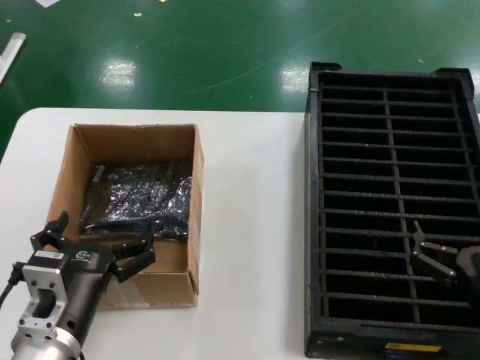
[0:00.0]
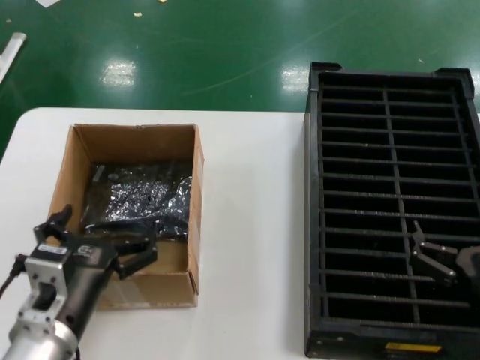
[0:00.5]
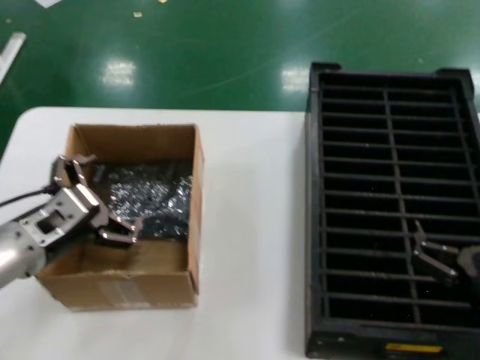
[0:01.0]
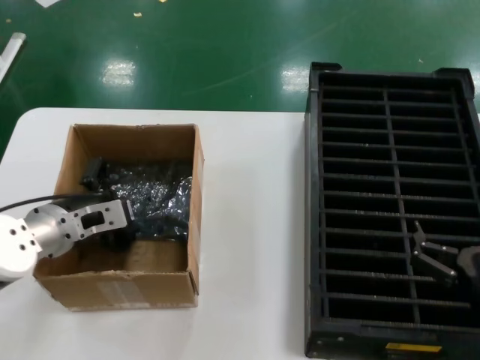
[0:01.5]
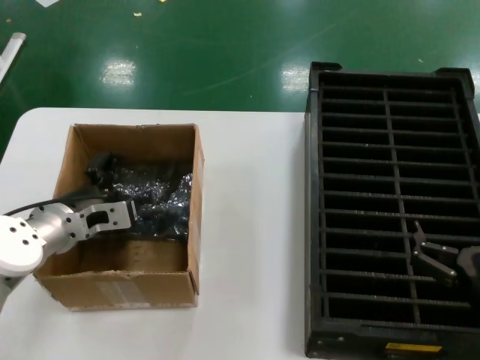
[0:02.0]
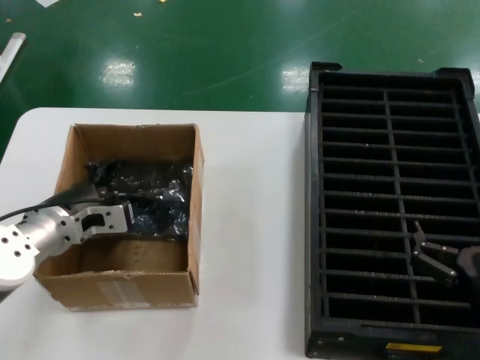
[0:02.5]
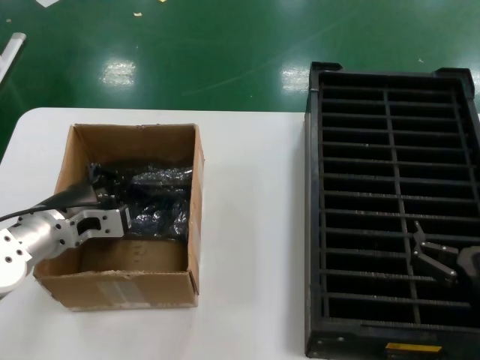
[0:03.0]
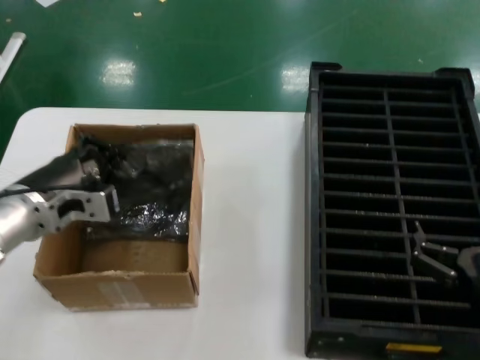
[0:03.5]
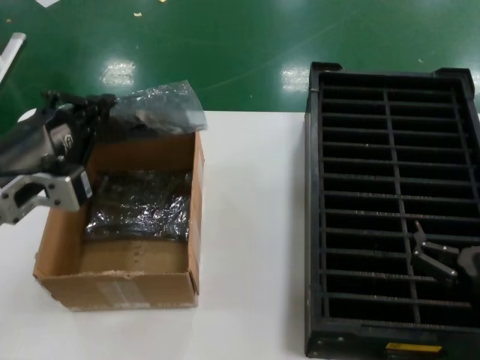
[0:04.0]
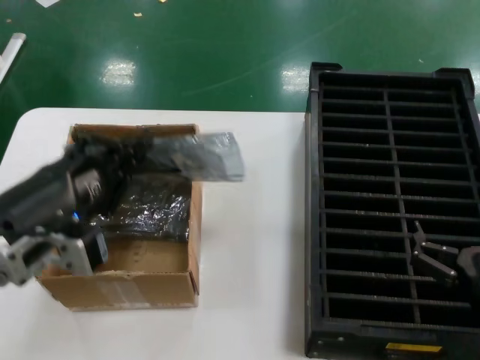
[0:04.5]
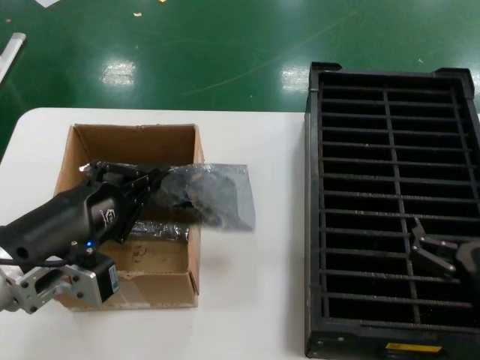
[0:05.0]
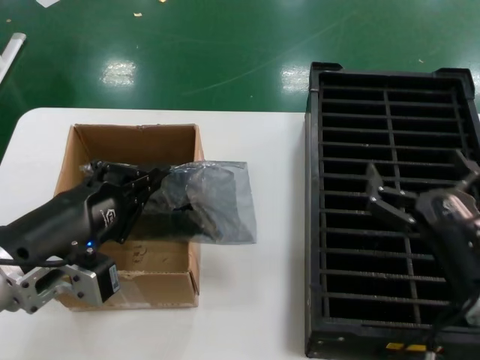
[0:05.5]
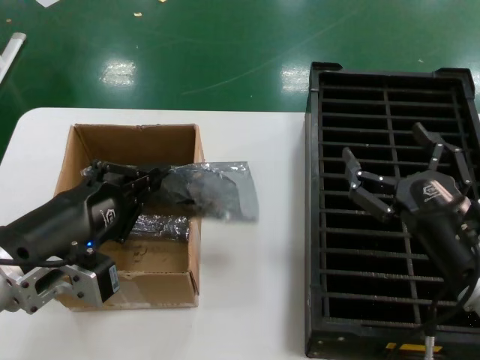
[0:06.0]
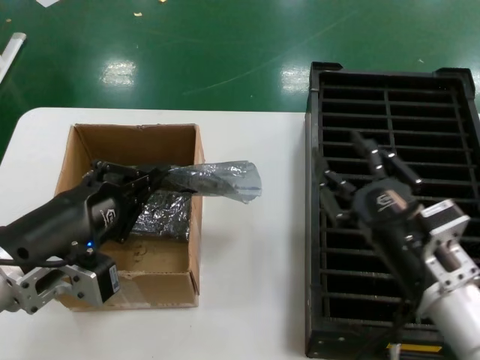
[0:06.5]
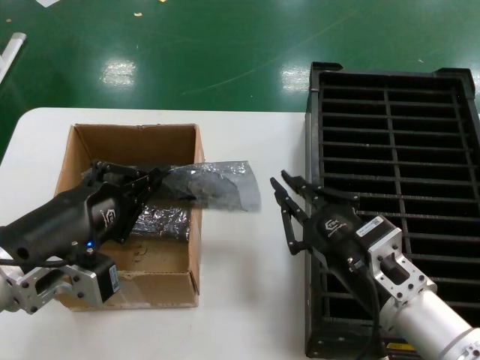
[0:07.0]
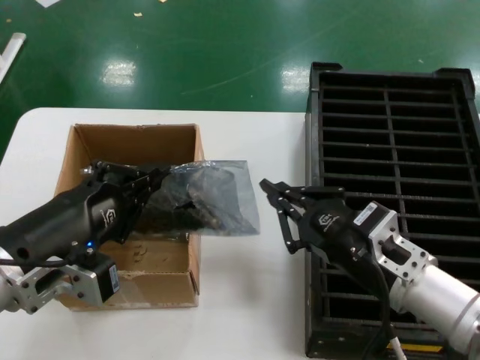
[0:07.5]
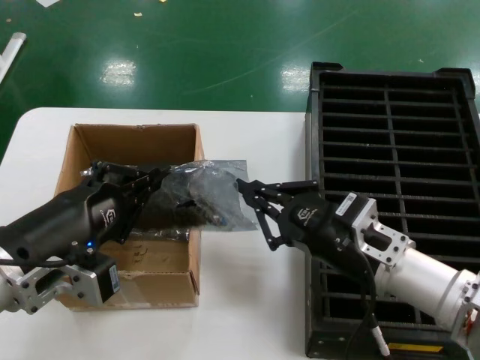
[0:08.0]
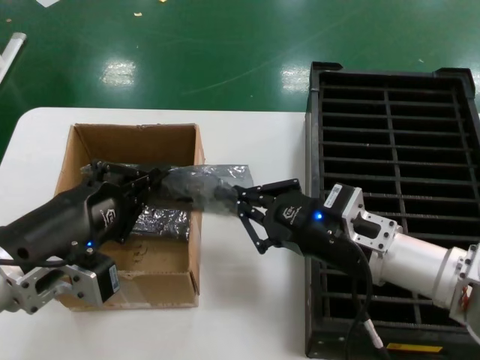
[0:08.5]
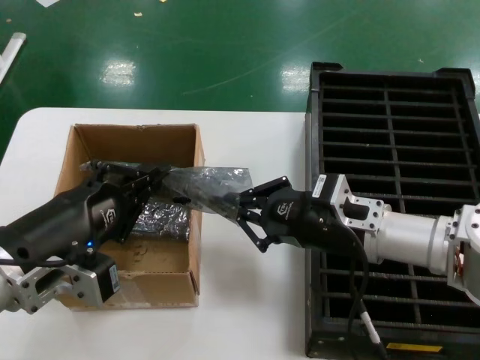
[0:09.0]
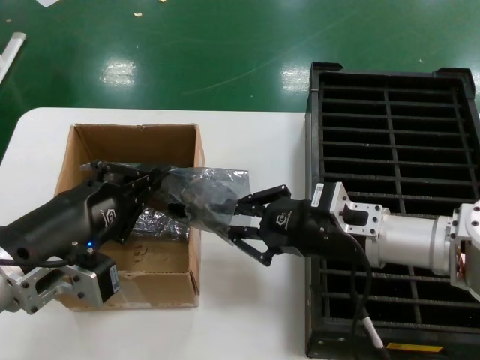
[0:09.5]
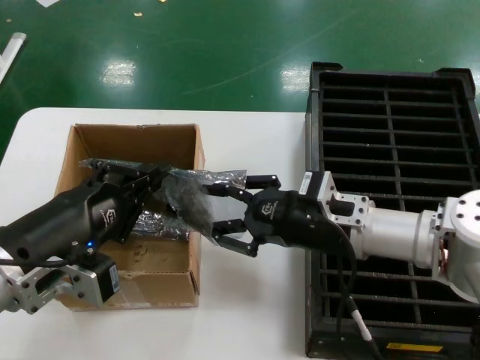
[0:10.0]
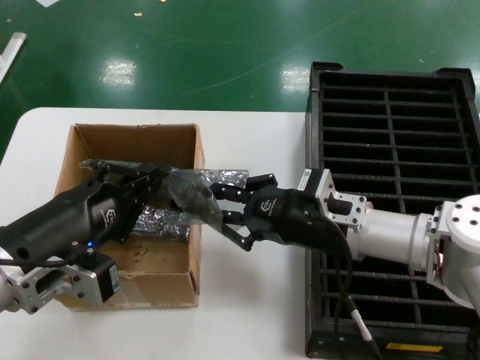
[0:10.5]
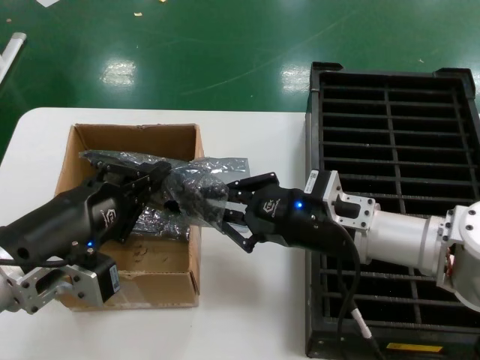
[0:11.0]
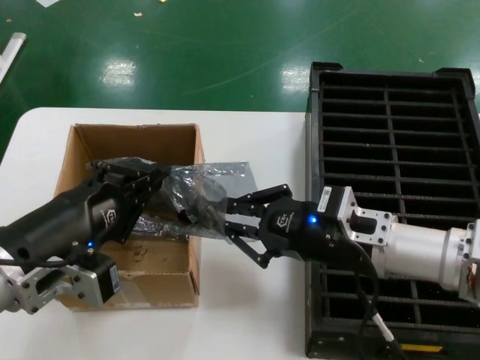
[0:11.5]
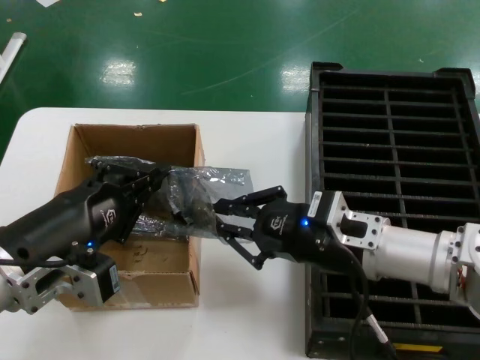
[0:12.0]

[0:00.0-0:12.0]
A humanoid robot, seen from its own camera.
Task of the whole recording: take out graphics card from box remove packaging put into black container.
Step, 0:00.0 to 0:02.0: Grasp the bag.
Step, 0:02.5 to 0:05.0: Lift the bag.
0:00.0 to 0:02.0: The left hand moves forward and to the left, approximately 20 cm.
0:02.0 to 0:04.0: The left hand shifts some 15 cm backward and upward.
0:04.0 to 0:06.0: The right hand is displaced upward by some 5 cm, while the left hand is displaced backward by approximately 5 cm.
0:06.0 to 0:08.0: The right hand moves to the left and forward, roughly 10 cm.
0:08.0 to 0:10.0: The right hand heads forward, covering about 5 cm.
0:10.0 to 0:12.0: There are only small adjustments of the hands.

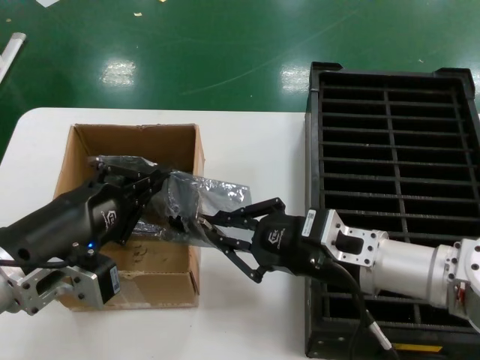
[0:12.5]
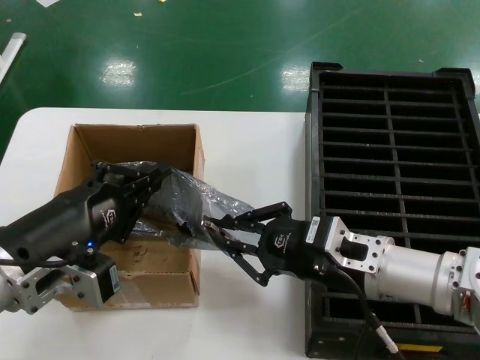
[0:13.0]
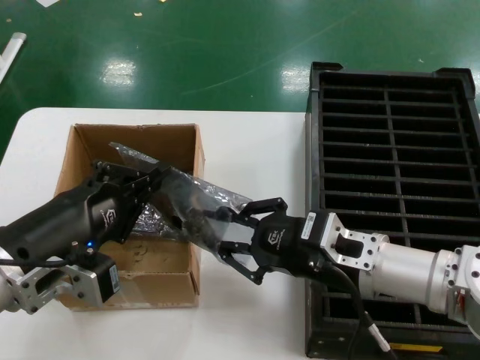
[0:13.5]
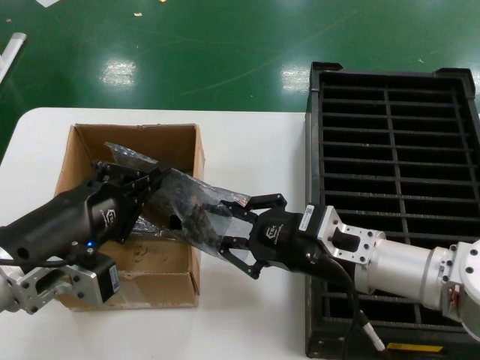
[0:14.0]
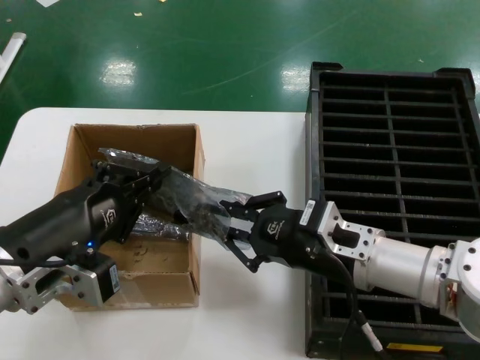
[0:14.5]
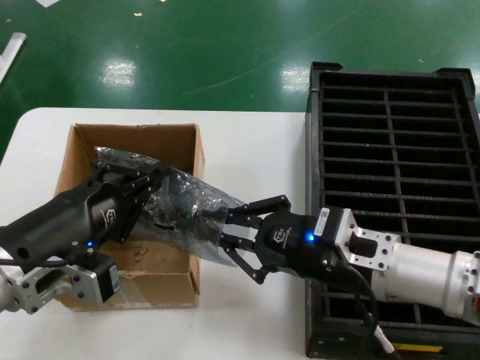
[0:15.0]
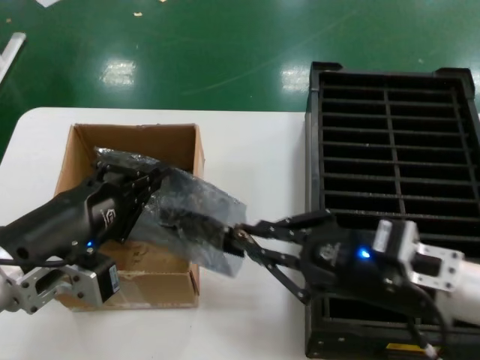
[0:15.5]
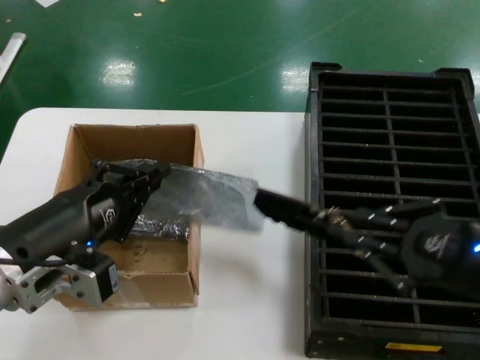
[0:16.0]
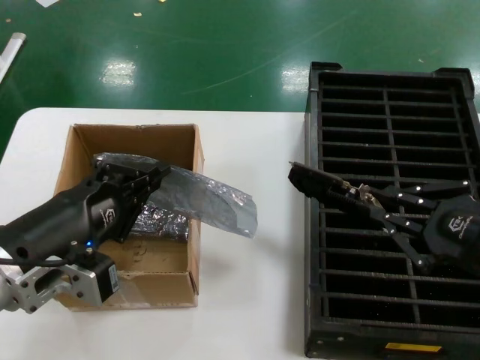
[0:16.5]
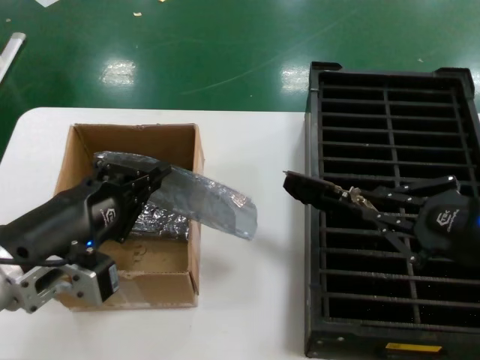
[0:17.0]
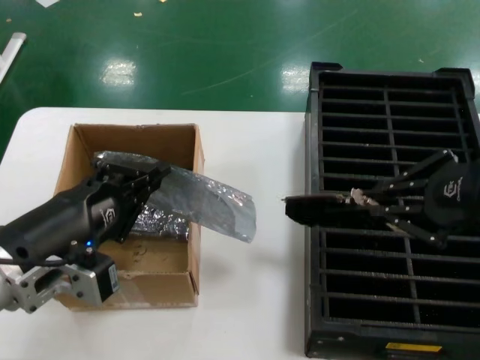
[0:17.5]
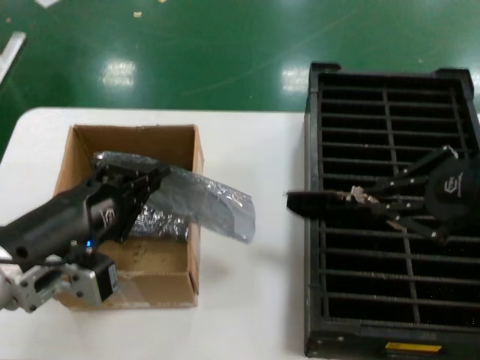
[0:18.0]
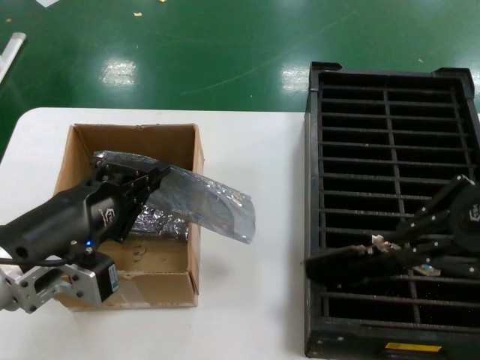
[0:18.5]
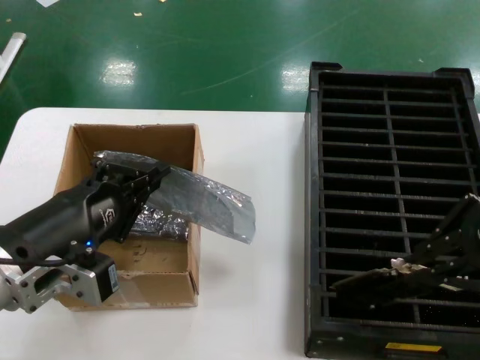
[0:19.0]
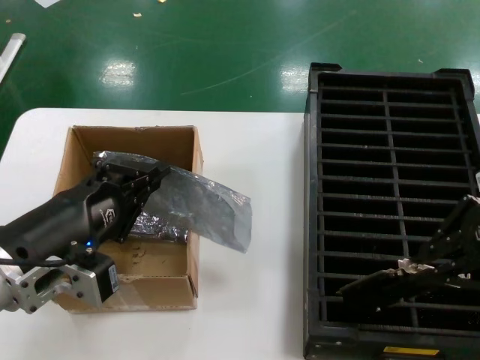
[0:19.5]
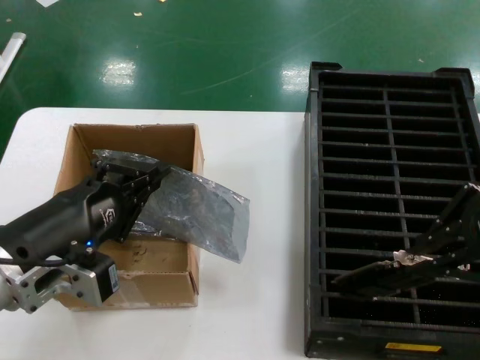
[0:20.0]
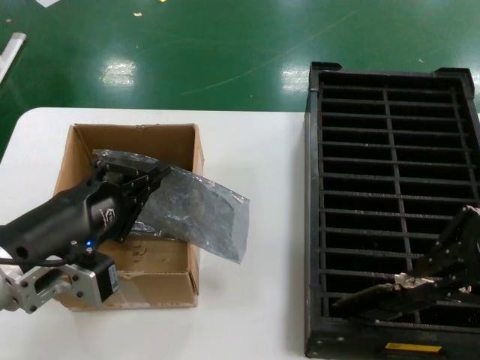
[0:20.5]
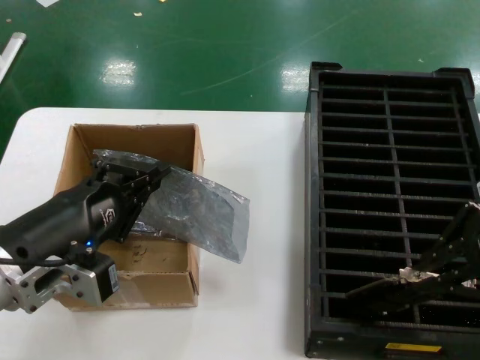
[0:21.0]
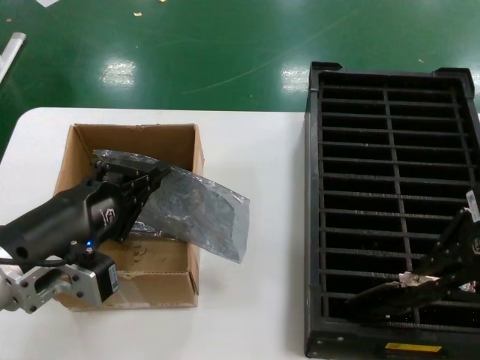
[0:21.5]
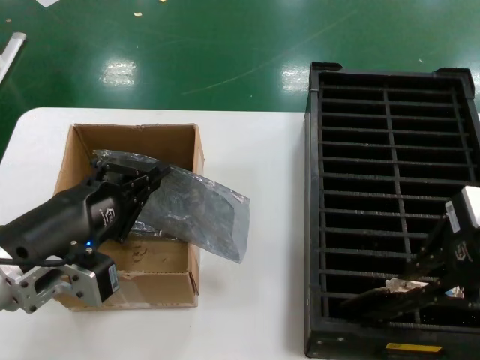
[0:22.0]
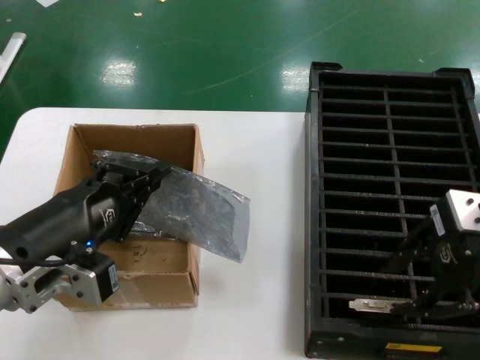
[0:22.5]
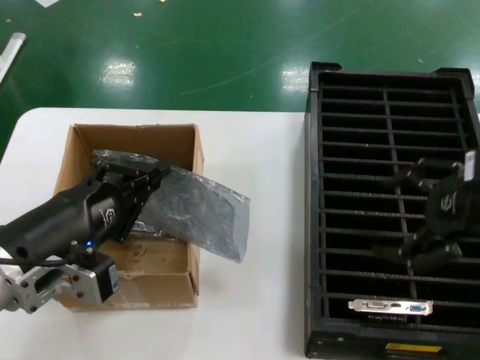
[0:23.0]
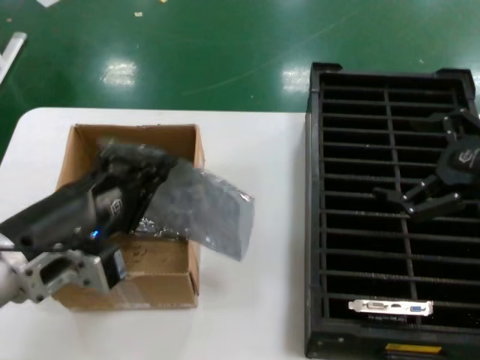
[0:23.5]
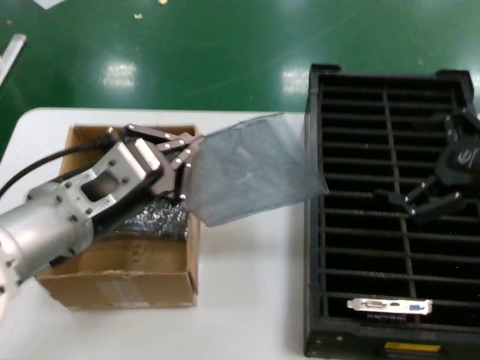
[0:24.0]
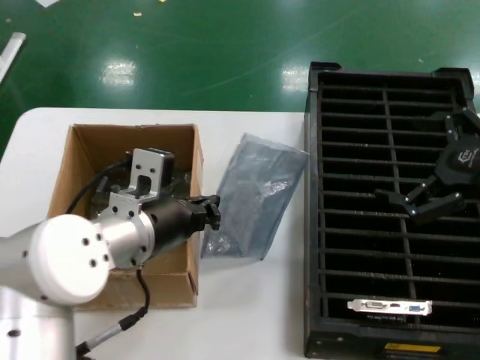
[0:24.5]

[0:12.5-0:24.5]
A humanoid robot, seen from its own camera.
Task of the whole recording: take out graphics card from box remove packaging put into black container.
Step, 0:12.5 to 0:16.0: Take out the hard disk of the bag.
Step, 0:16.5 to 0:22.5: Place the hard disk in the hard disk enclosure.
0:12.5 to 0:14.5: The hands make only small movements.
0:14.5 to 0:16.5: The right hand travels to the right, backward and upward by approximately 20 cm.
0:16.5 to 0:18.5: The right hand moves upward and forward, some 15 cm.
0:18.5 to 0:20.5: The hands move only a little.
0:20.5 to 0:22.5: The right hand changes place by about 5 cm.
0:22.5 to 0:24.5: The right hand is displaced to the right by roughly 10 cm, while the left hand heads forward and to the right, covering about 15 cm.

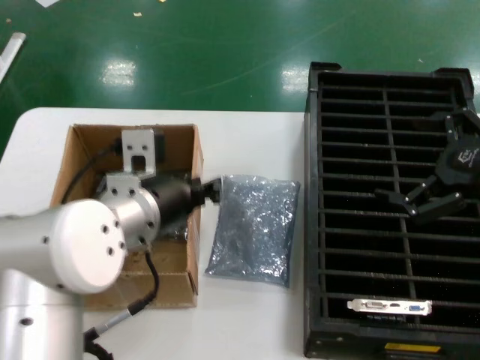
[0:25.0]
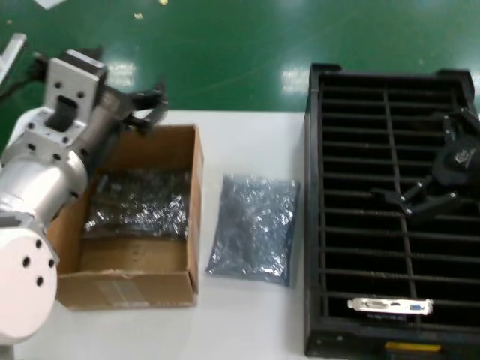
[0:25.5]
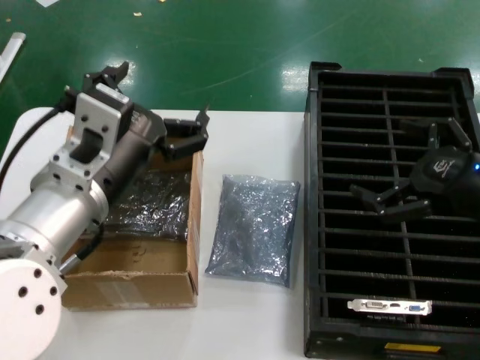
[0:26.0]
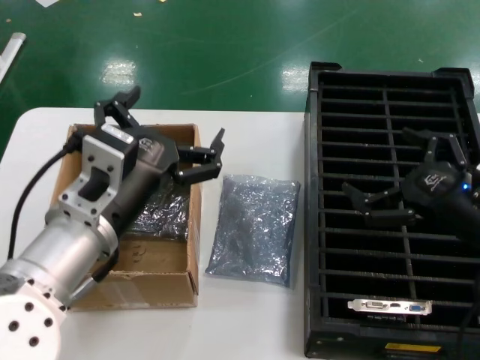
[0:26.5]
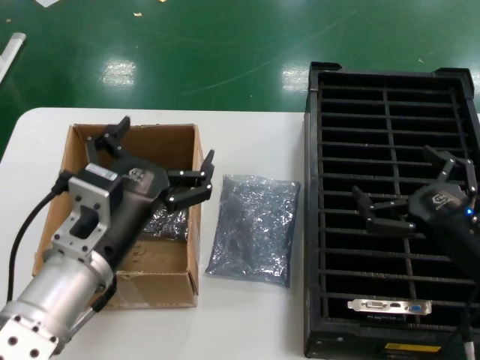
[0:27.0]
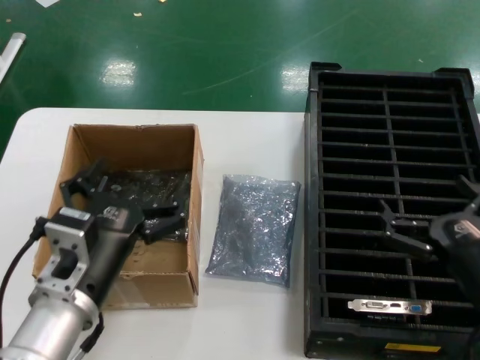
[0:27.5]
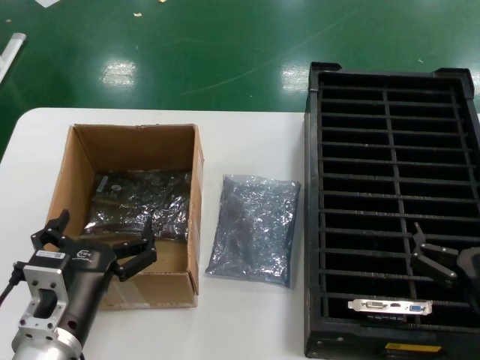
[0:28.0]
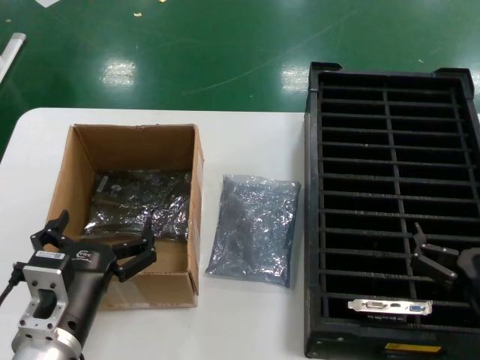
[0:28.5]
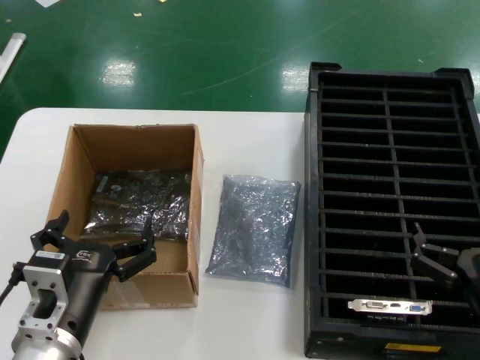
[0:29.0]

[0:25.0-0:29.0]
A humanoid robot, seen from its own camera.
Task of the whole recording: take out graphics card from box remove packaging put into black container.
Step, 0:25.0 to 0:27.0: Place the down the bag.
0:25.0 to 0:27.0: The left hand shifts approximately 10 cm backward and downward; the right hand shifts approximately 15 cm downward and to the left.
0:27.0 to 0:29.0: The left hand is displaced downward by some 10 cm. Meanwhile the right hand moves backward and downward, roughly 10 cm.
